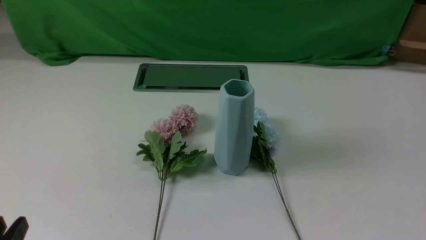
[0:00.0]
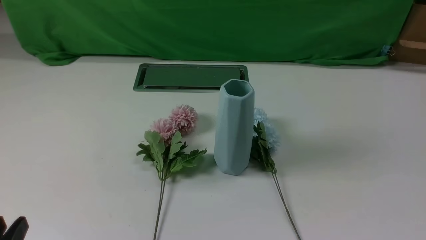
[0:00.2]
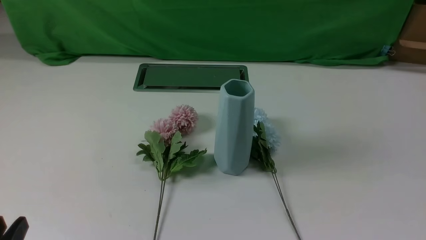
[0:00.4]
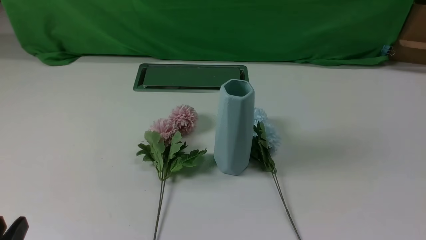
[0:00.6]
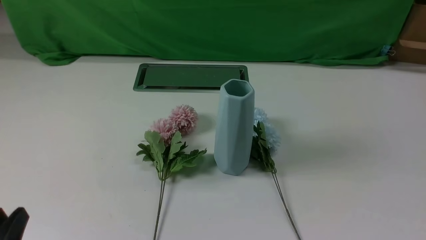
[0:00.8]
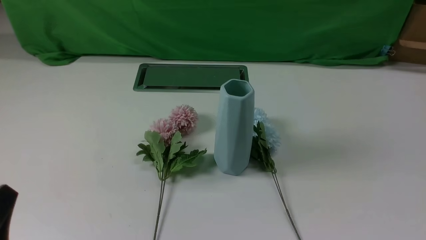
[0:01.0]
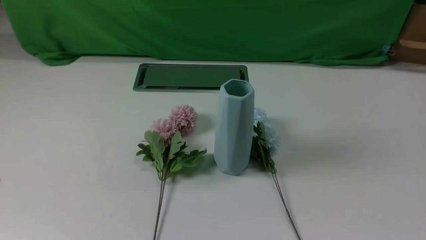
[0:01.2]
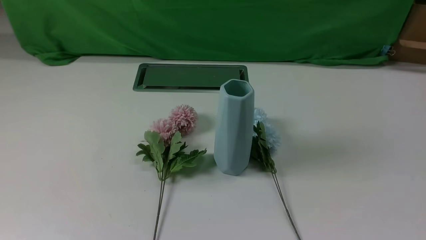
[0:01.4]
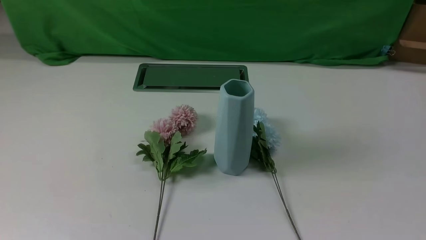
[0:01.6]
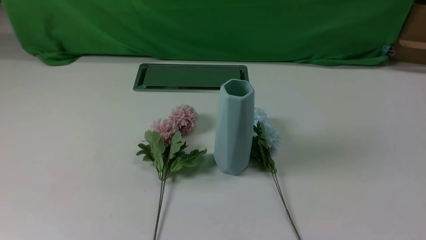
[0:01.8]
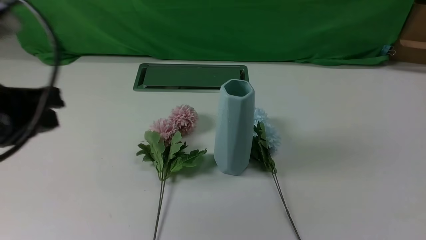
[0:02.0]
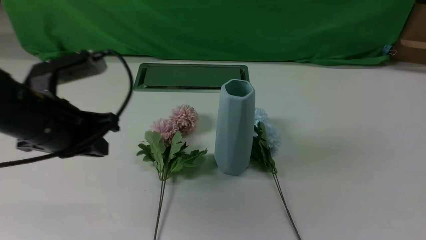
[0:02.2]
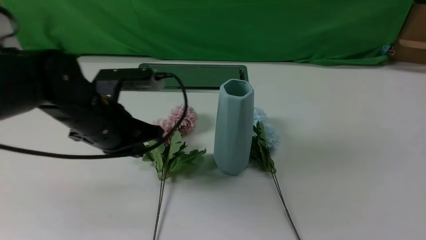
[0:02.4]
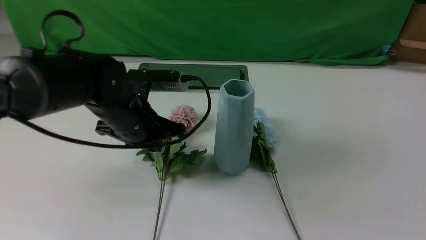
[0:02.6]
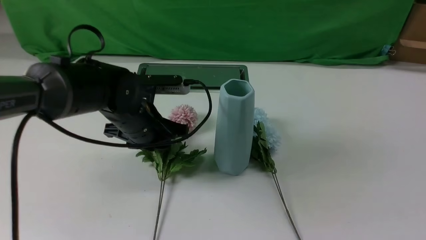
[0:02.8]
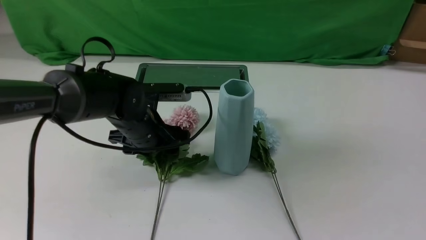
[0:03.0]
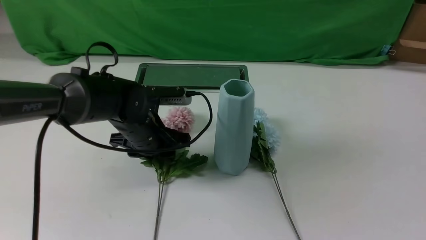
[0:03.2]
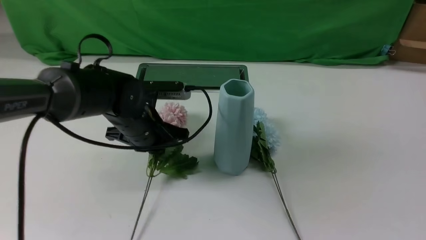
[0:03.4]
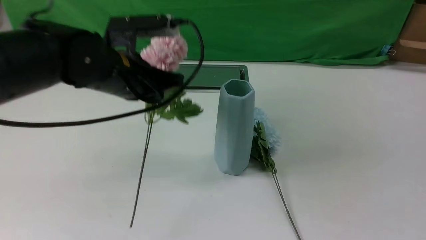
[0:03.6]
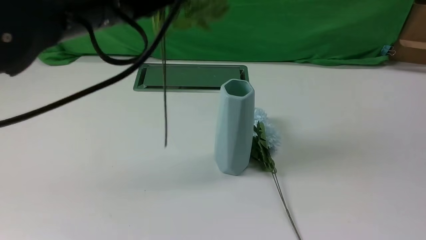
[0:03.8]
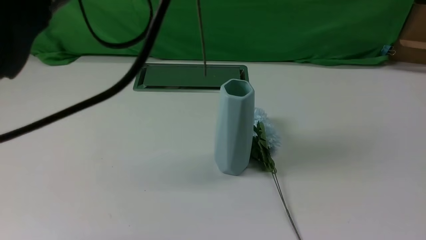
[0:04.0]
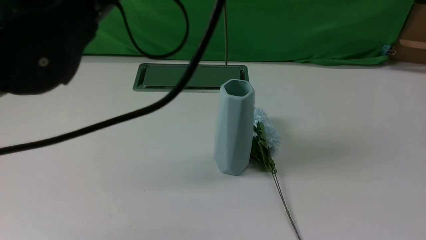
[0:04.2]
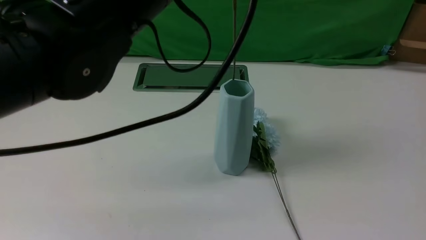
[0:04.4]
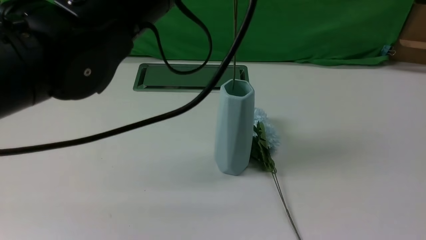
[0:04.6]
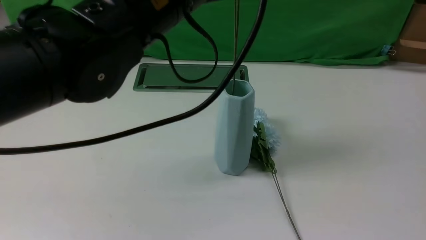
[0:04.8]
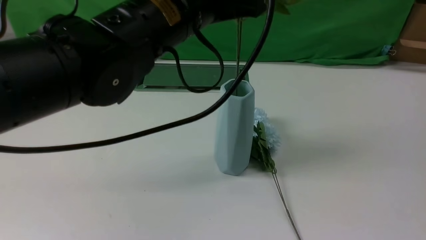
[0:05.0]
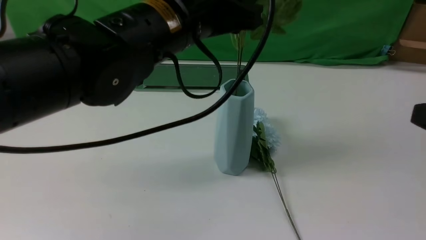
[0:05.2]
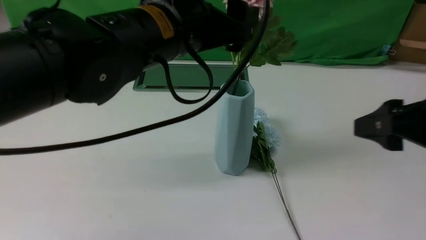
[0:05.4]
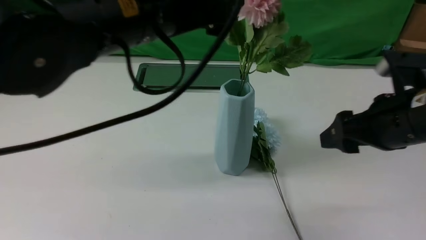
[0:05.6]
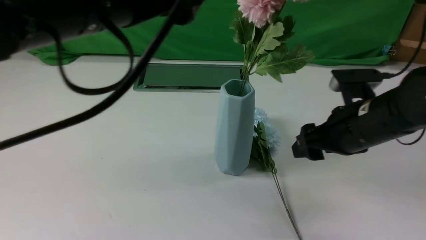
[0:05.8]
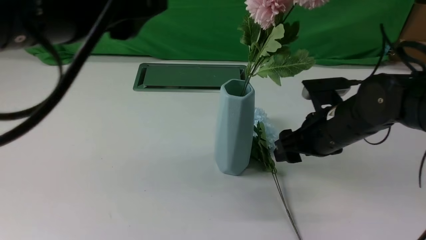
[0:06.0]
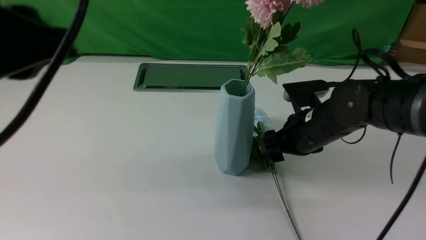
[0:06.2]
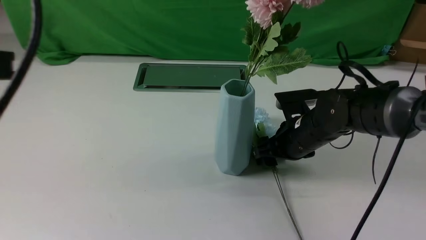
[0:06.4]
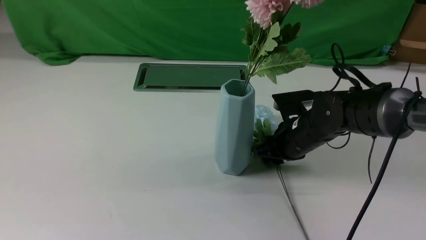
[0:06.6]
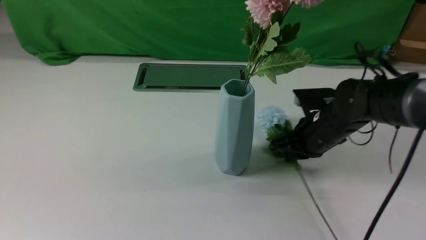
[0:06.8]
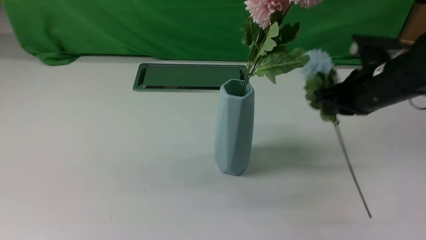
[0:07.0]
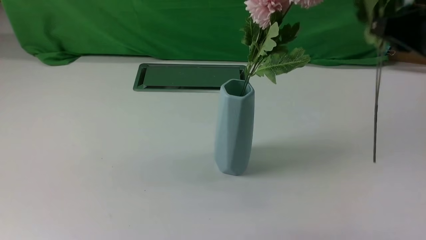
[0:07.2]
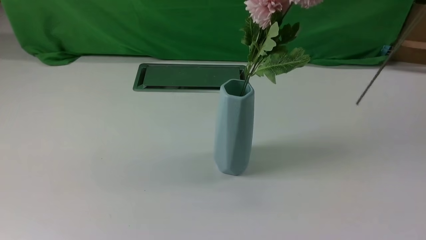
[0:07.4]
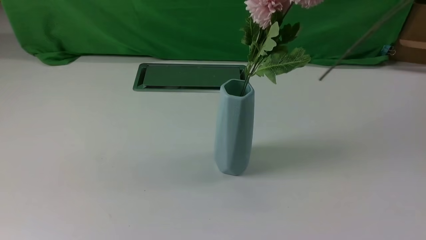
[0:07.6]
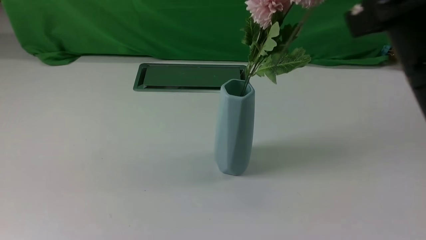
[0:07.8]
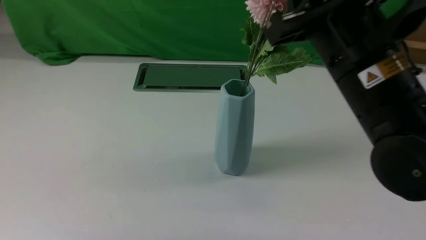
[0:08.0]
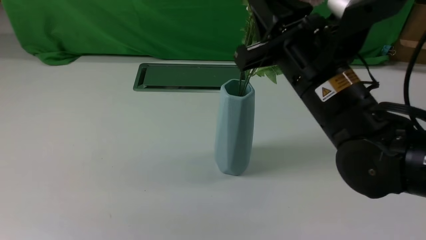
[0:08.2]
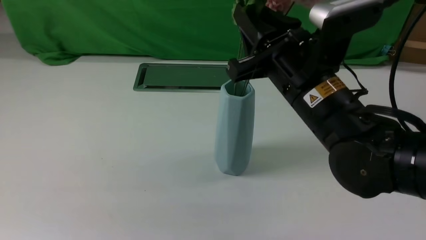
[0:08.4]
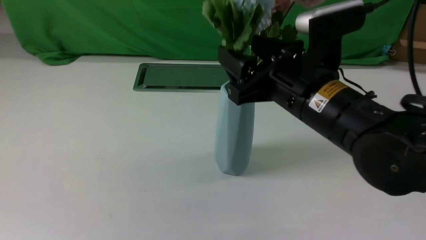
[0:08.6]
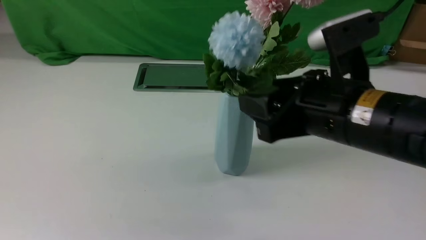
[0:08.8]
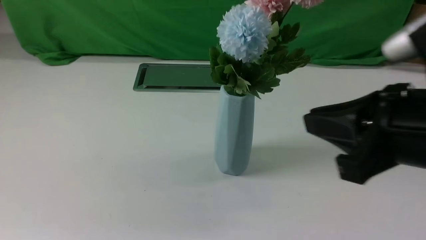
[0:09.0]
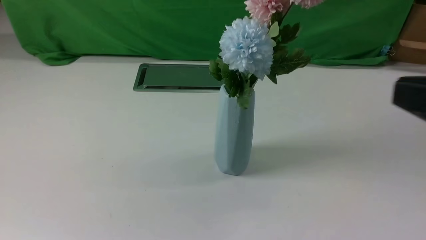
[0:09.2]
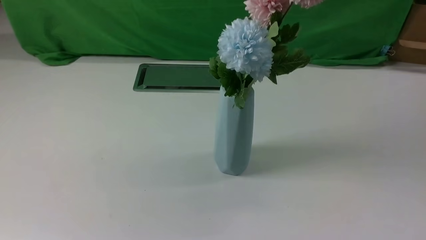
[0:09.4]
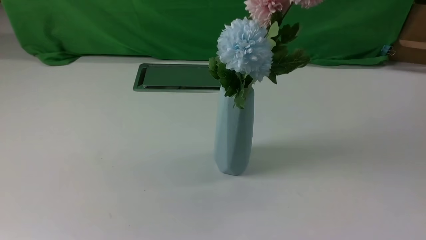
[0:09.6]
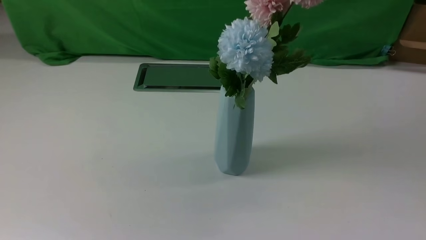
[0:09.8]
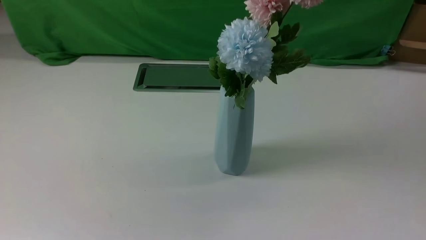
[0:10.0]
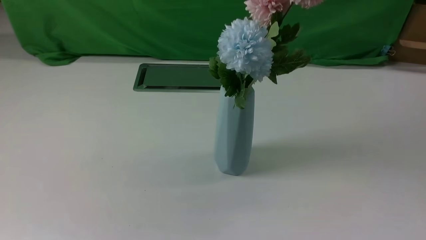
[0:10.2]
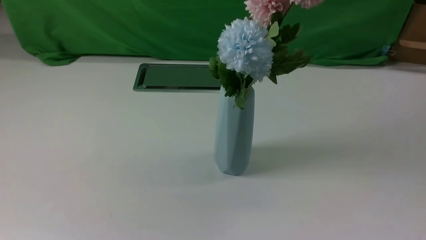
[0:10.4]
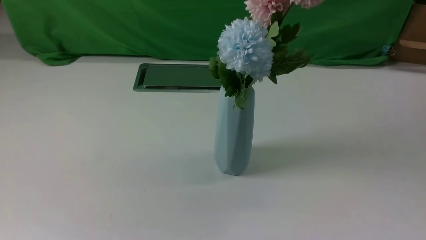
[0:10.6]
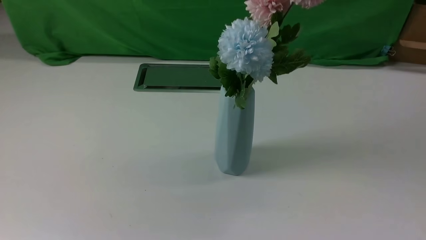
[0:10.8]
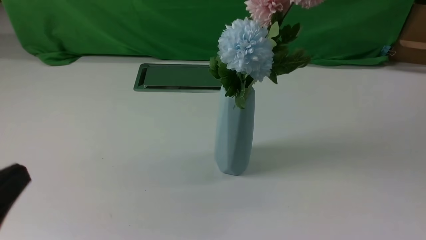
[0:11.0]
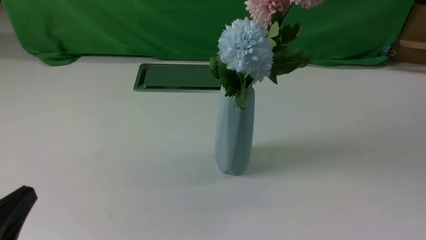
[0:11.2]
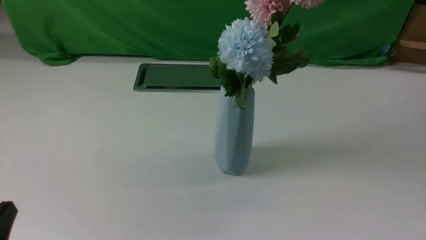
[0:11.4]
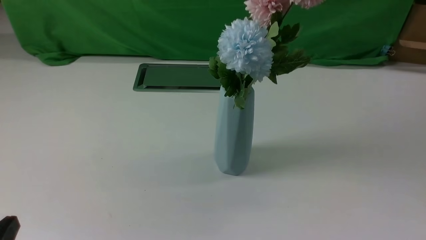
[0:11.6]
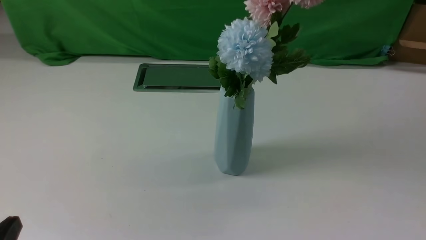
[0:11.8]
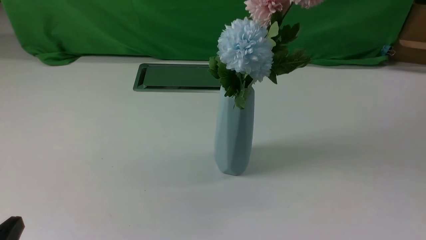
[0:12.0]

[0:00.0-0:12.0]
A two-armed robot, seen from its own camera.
Task of the whole recording: insert the flowers into the vase on the white table.
Step, 0:00.0 to 0:03.2: use the left arm to grab a bunch of fresh flowers.
Step, 0:03.4 to 0:05.6: use the left arm to insert the flowers into the vase.
Step, 0:05.8 to 0:06.6: use the right arm to grab a bunch of fresh flowers.
Step, 0:06.8 to 0:08.8: use the right arm to insert the flowers into the vase.
0:01.6 to 0:03.0: The left gripper is displaced forward, downward and to the right by some 35 cm, and opens. Meanwhile the right gripper shifts approximately 15 cm upward and forward.
0:03.0 to 0:04.4: The left gripper travels upward by about 25 cm, and closes.
0:04.4 to 0:06.0: The left gripper heads backward and to the left, covering roughly 10 cm, and opens. The right gripper is displaced forward, downward and to the left by roughly 25 cm, and opens.
0:06.0 to 0:07.6: The right gripper is displaced upward and backward by approximately 25 cm, and closes up; the left gripper moves to the left and backward, some 10 cm, and closes up.
0:07.6 to 0:09.0: The right gripper reaches some 10 cm forward, then returns, and opens, then closes once more.
0:09.0 to 0:10.4: The right gripper travels backward and to the right by approximately 20 cm. Meanwhile the left gripper is displaced downward and backward by some 15 cm.

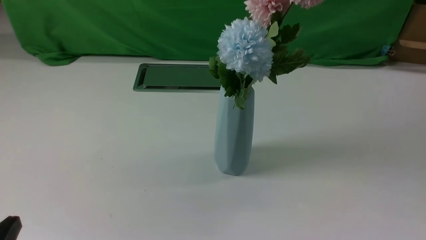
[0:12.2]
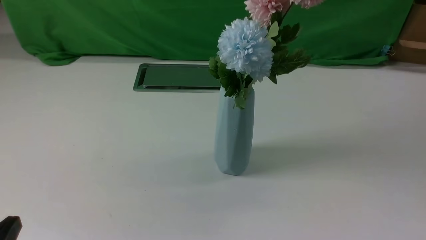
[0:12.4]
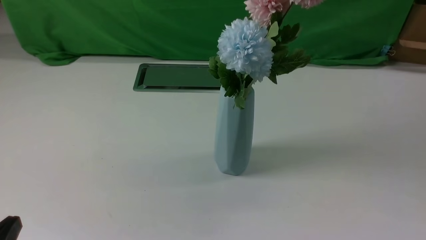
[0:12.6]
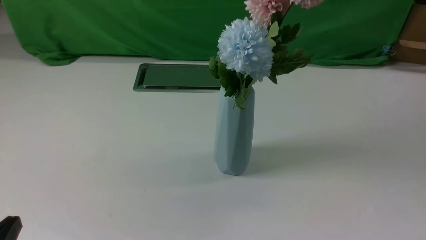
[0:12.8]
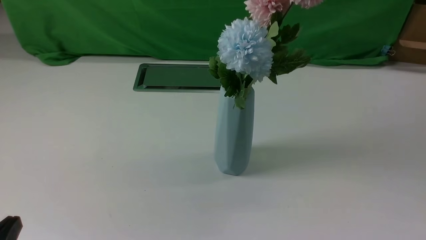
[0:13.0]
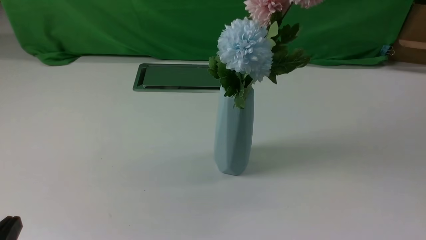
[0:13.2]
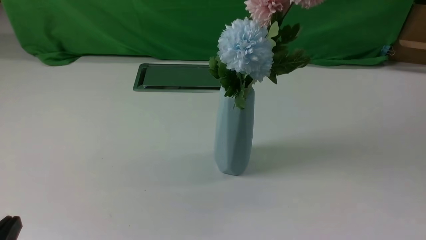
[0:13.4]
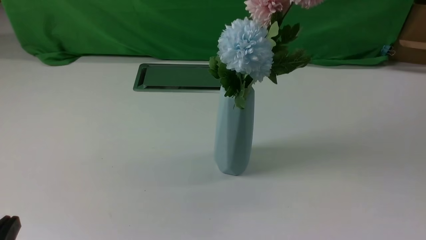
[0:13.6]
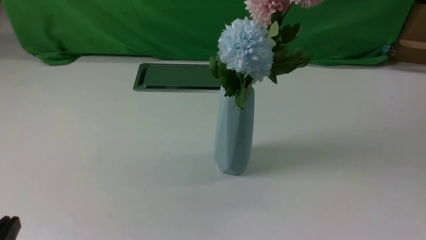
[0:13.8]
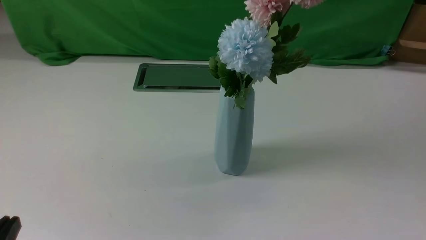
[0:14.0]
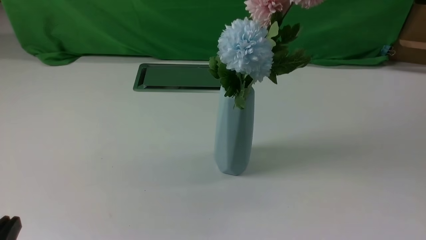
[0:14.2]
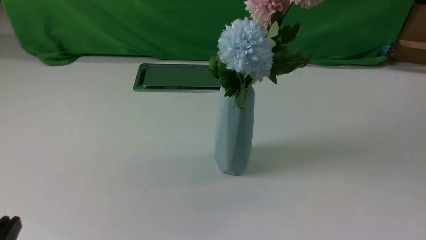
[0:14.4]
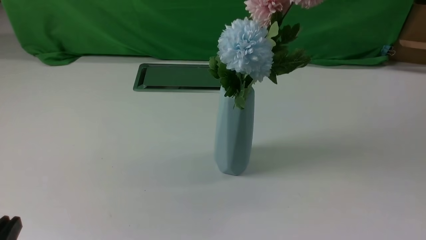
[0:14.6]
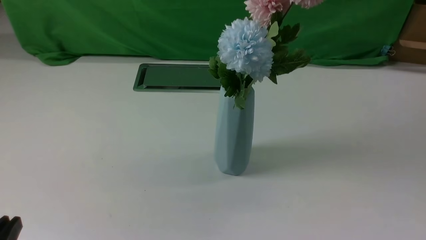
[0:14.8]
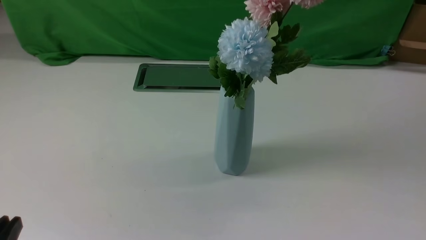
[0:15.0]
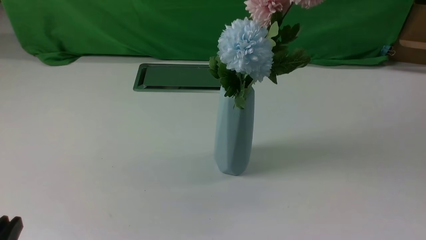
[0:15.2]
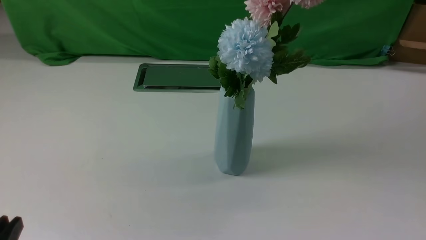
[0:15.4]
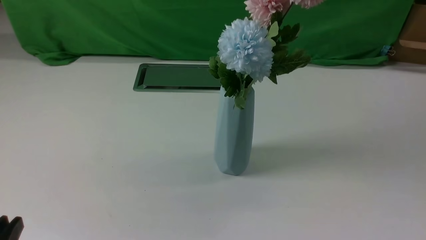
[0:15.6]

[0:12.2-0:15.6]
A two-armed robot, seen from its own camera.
Task of the whole recording: insert the flowers into the vase on the white table.
0:13.8 to 0:15.6: Both grippers stay about where they are.

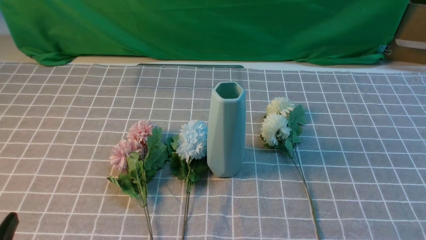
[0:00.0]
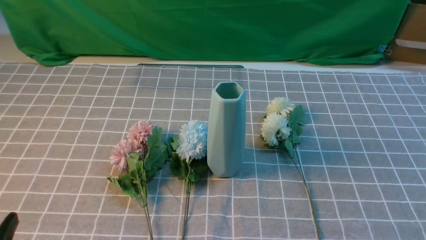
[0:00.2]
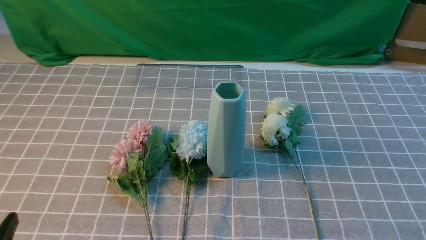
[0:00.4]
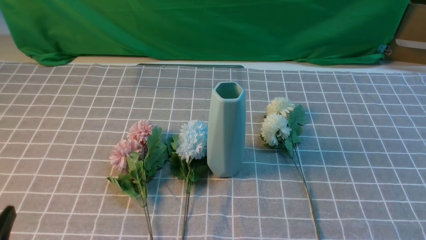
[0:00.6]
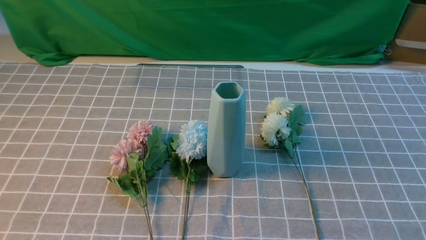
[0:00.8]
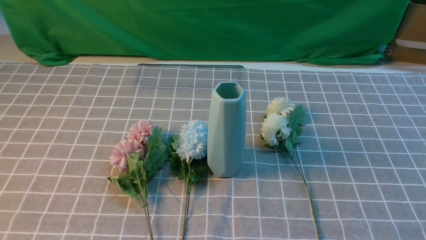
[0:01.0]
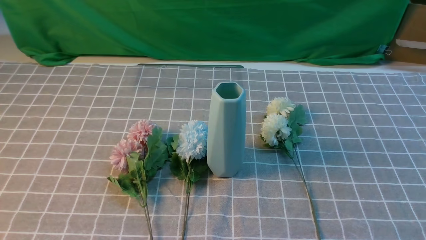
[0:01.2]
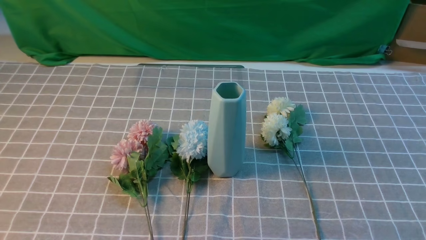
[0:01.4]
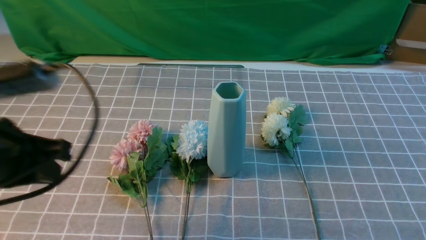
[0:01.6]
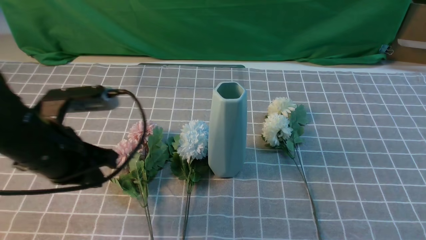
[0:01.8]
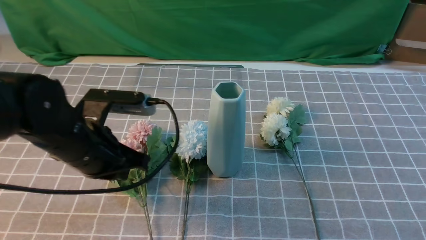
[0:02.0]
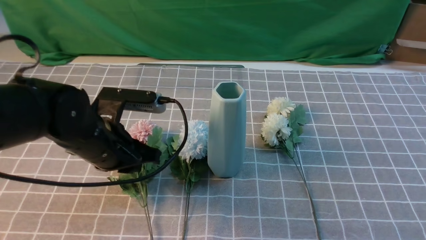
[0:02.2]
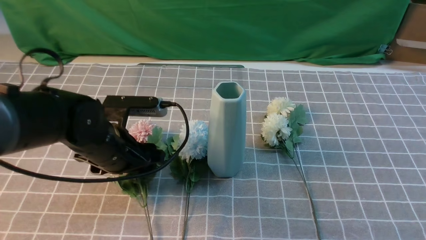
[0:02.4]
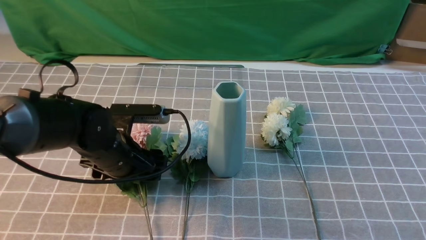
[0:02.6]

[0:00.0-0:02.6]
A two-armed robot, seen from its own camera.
Task of the whole recording: insert the flowers into the vase on the table with the grey tablecloth.
0:01.2 to 0:02.6: The right gripper travels upward and forward by roughly 15 cm, and closes its fingers. Meanwhile the left gripper moves forward, downward and to the right, some 30 cm, and opens up.
